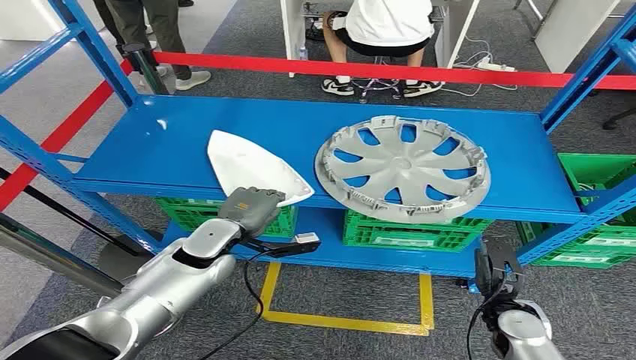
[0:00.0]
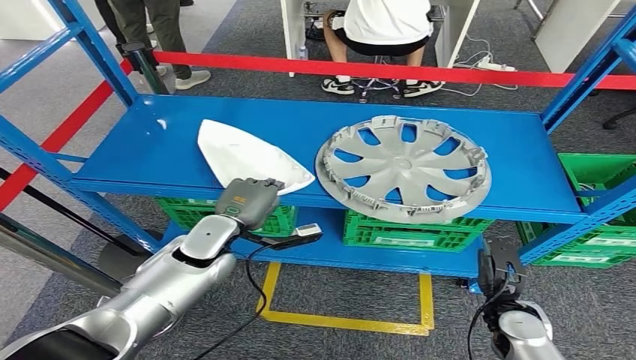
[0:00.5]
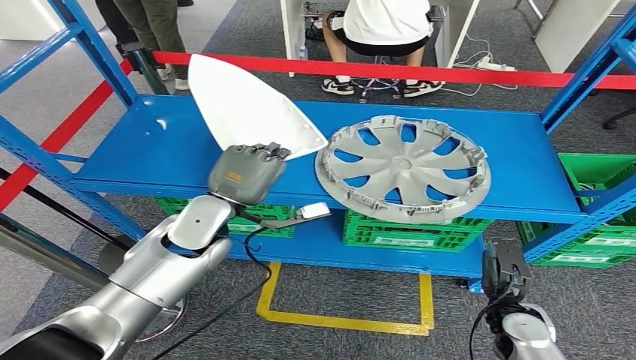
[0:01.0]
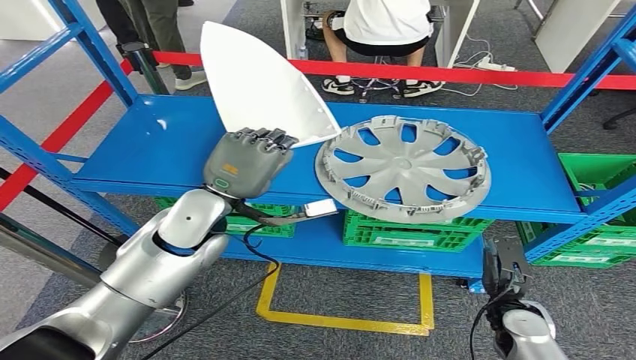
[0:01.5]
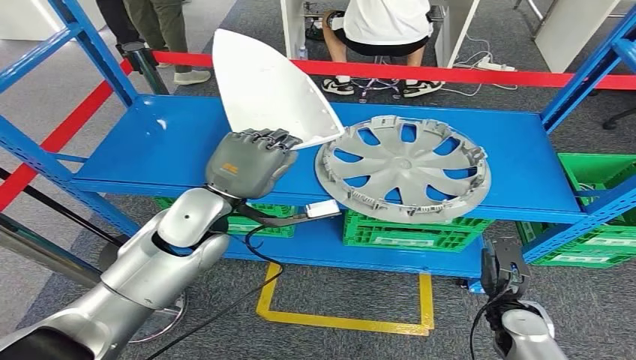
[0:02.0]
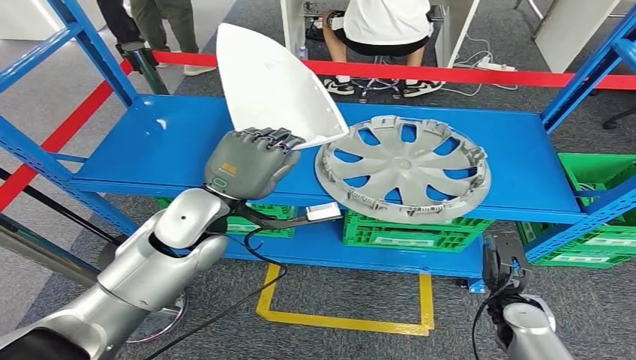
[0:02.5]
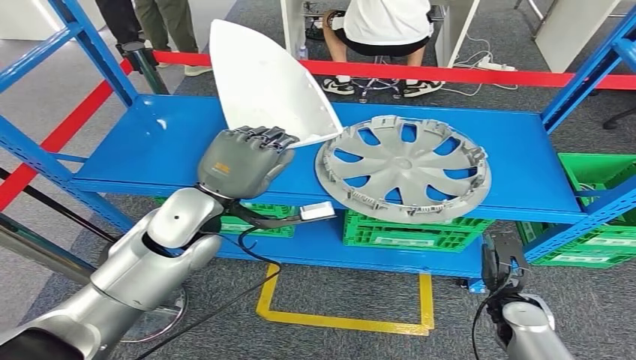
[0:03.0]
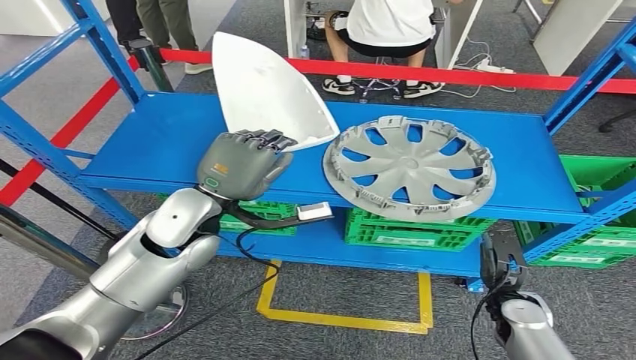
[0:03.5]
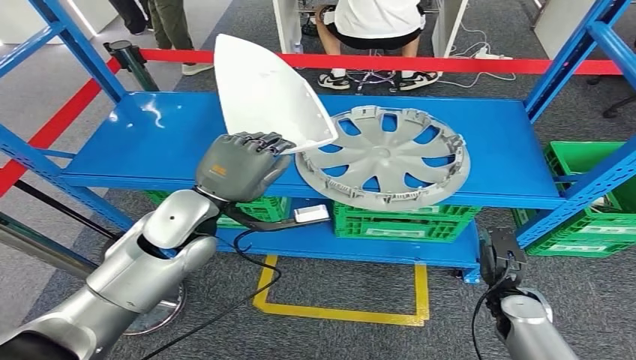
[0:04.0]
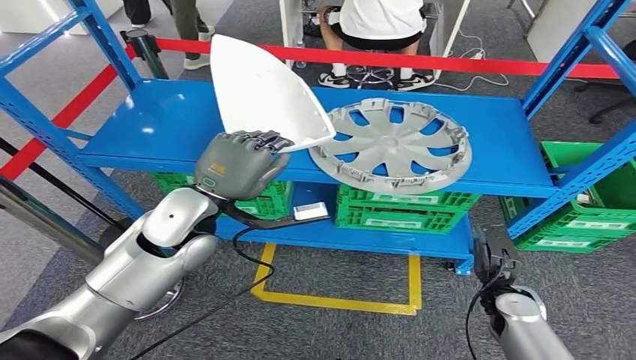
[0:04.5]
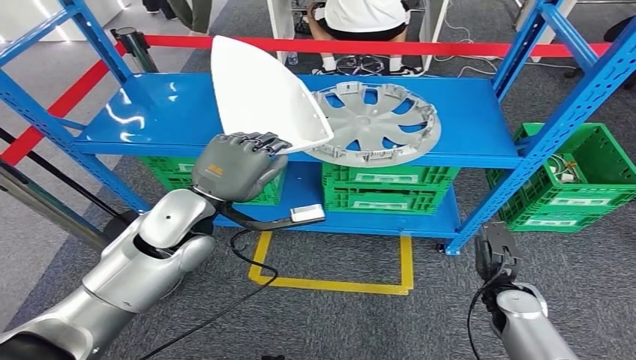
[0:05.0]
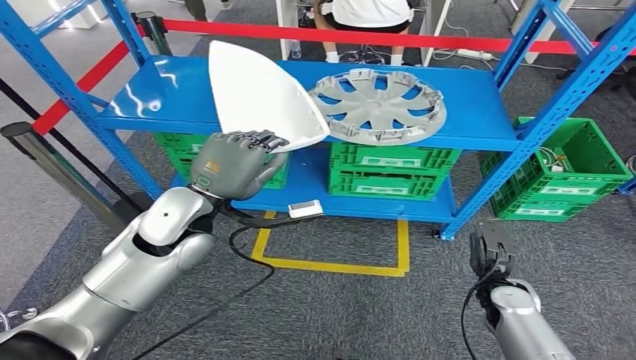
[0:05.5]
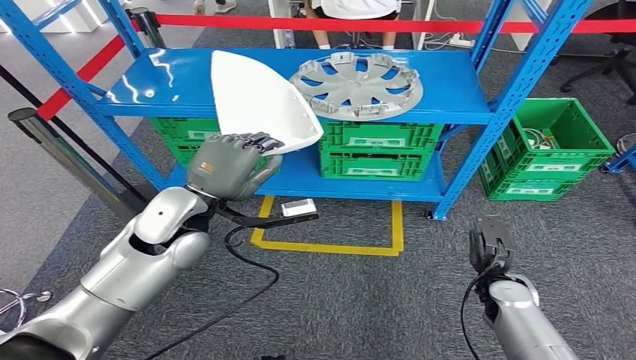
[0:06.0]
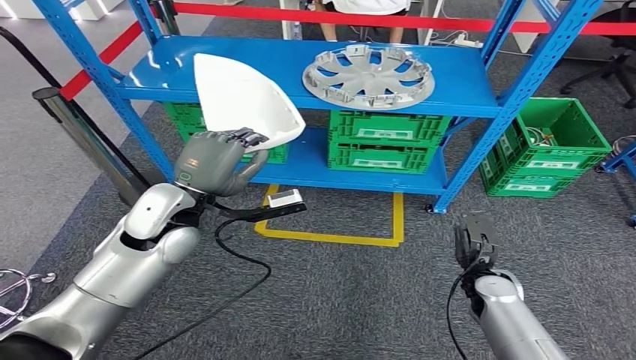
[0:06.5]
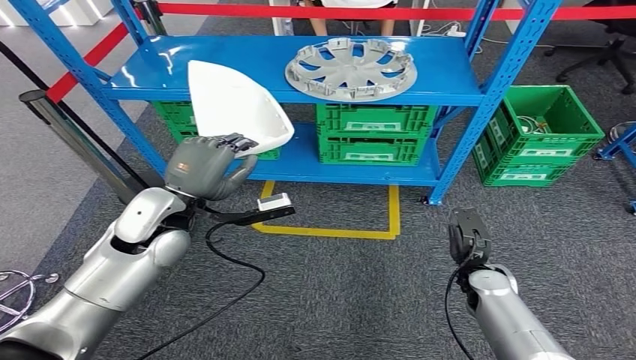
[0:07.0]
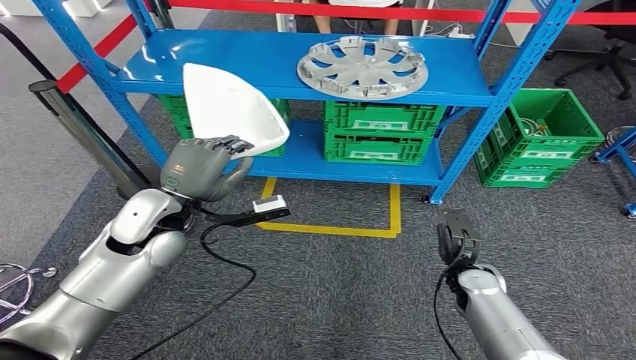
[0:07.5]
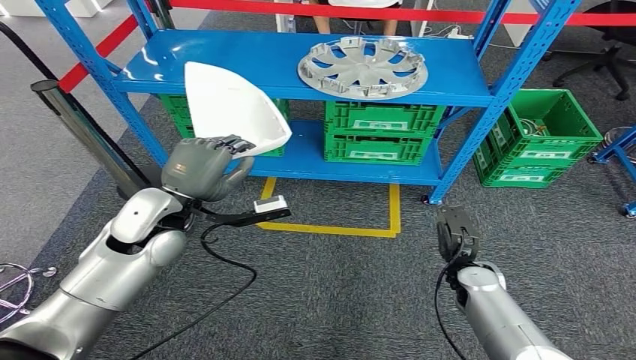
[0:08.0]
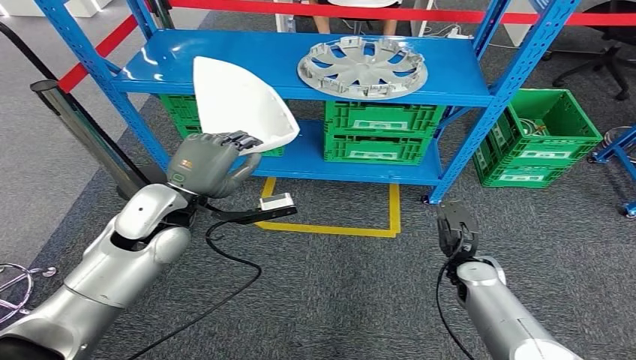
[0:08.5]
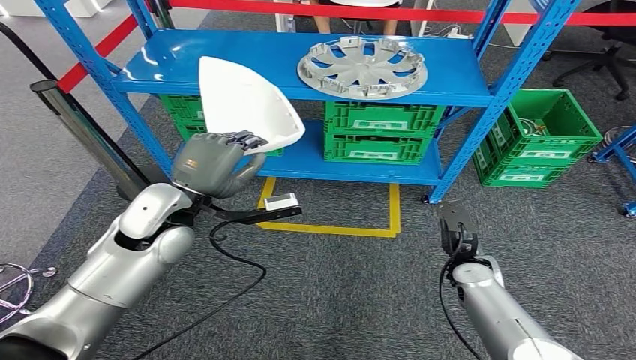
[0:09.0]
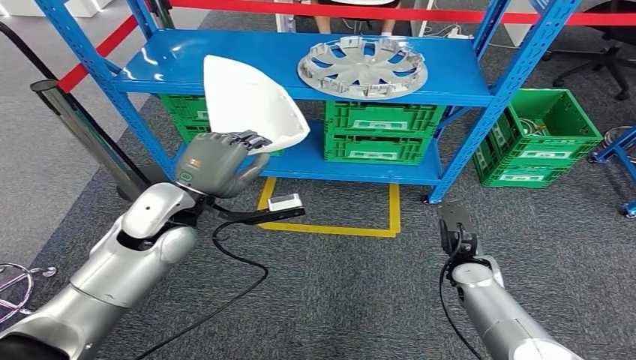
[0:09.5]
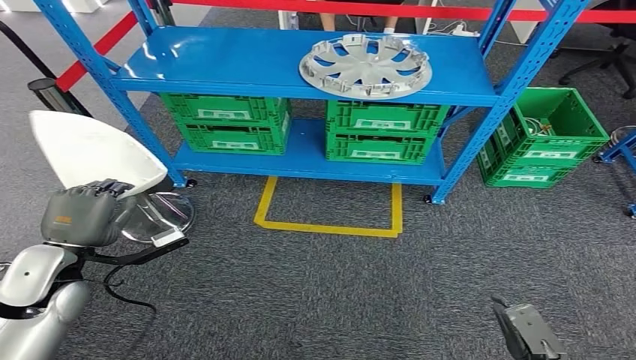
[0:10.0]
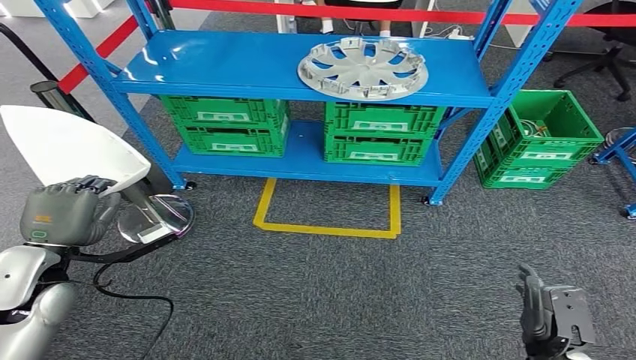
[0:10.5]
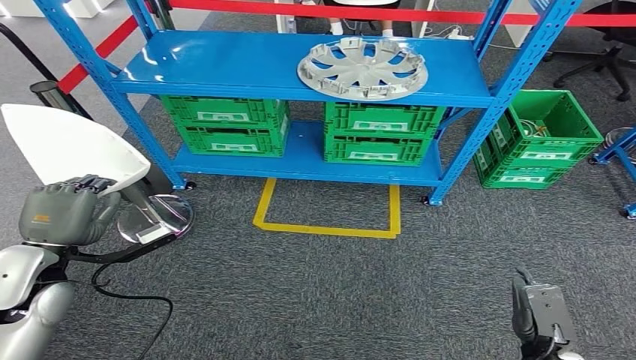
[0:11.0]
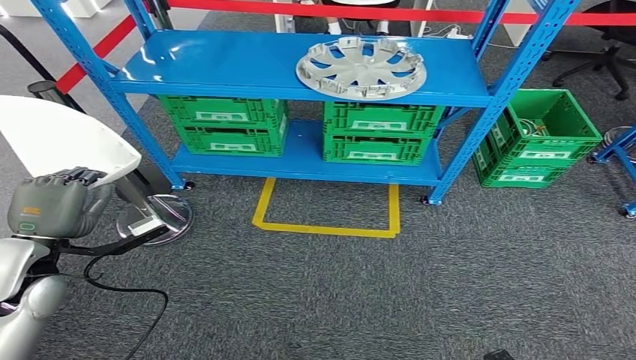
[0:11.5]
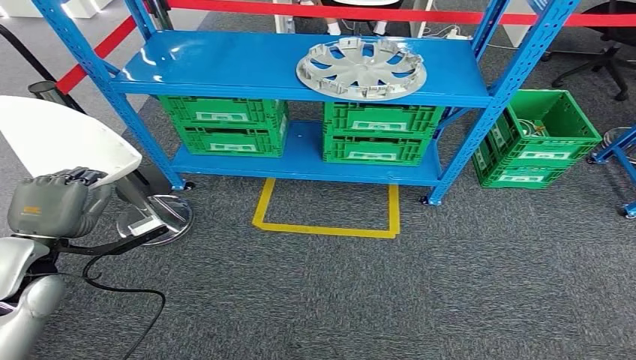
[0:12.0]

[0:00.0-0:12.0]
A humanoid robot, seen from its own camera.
Step, 0:00.0 to 0:04.5: Pick up the small component from the shelf.

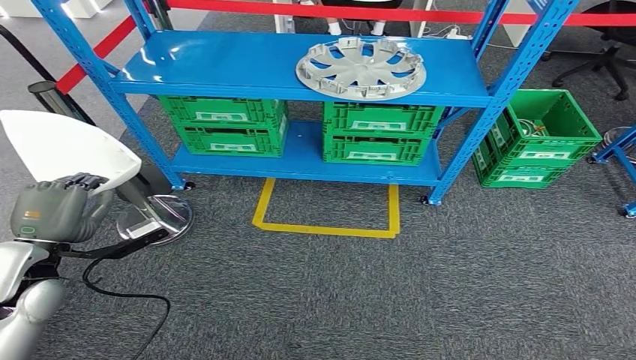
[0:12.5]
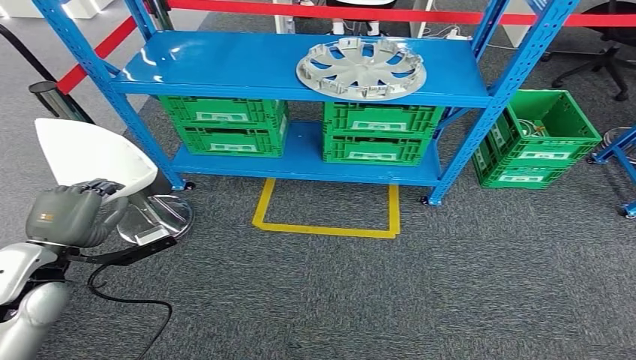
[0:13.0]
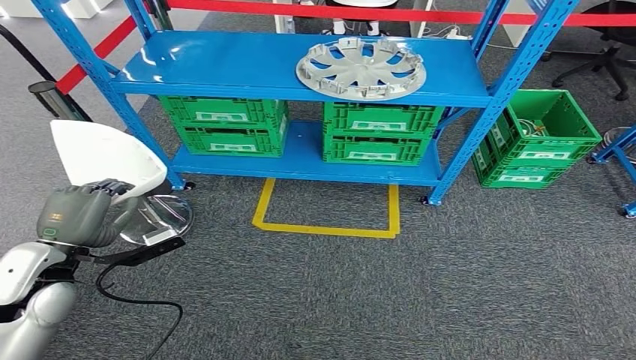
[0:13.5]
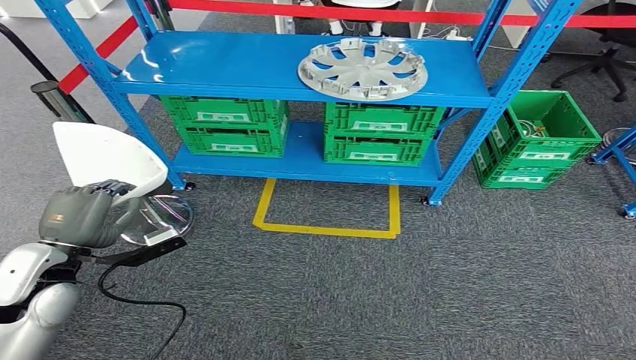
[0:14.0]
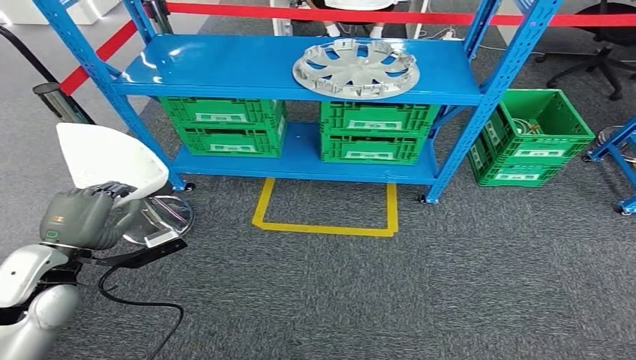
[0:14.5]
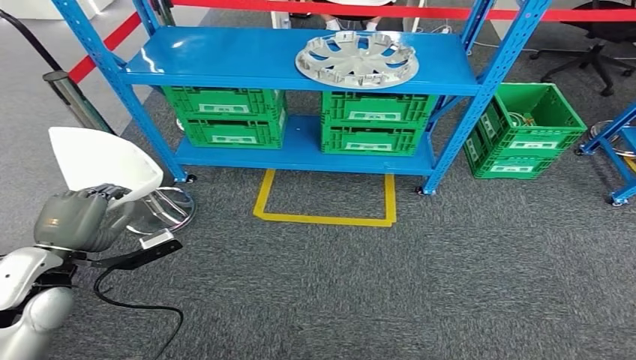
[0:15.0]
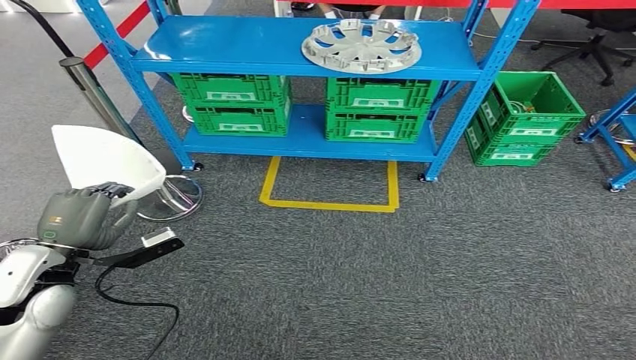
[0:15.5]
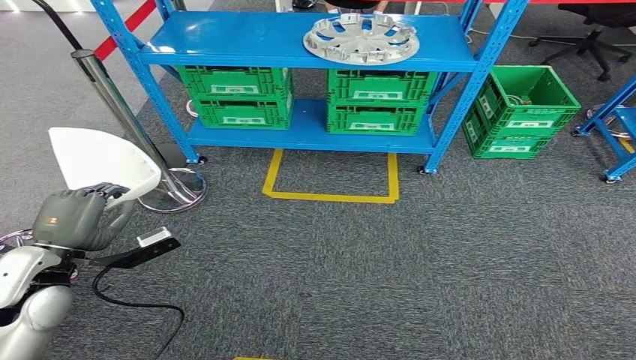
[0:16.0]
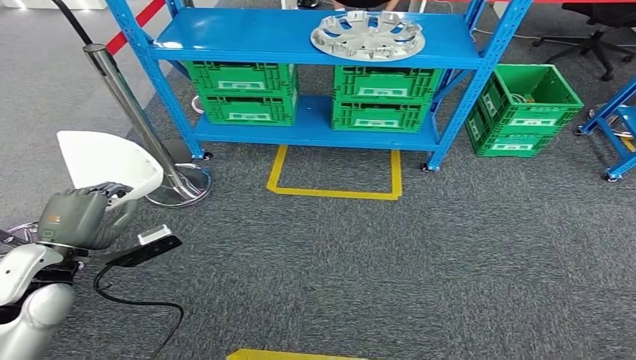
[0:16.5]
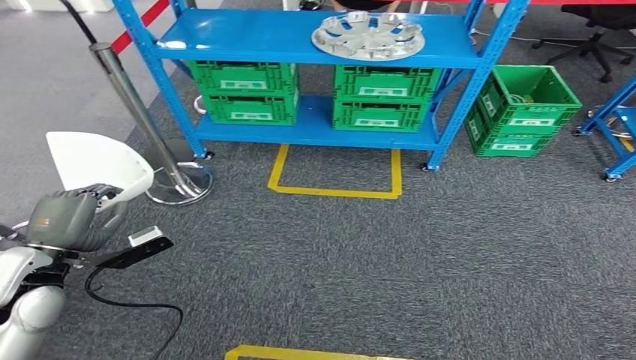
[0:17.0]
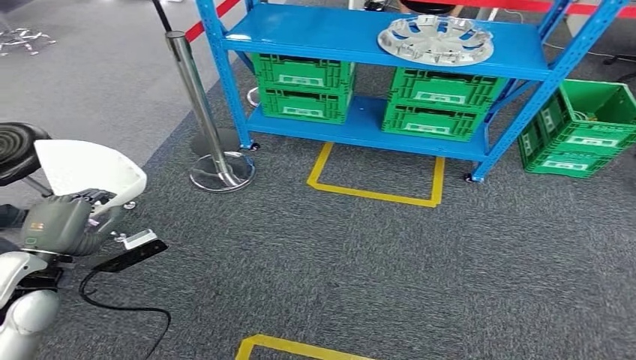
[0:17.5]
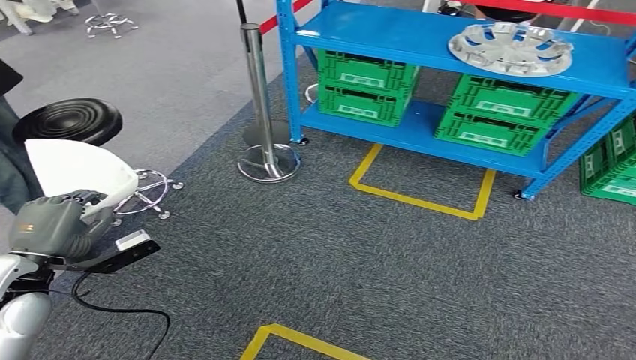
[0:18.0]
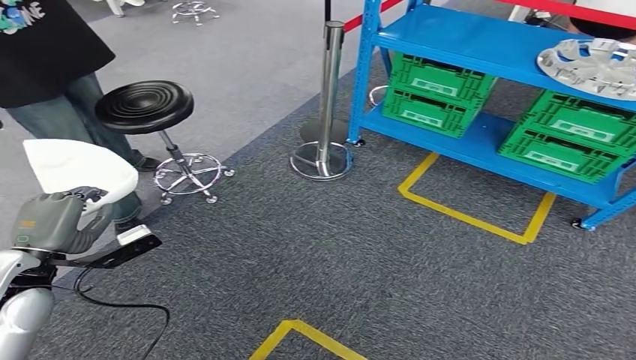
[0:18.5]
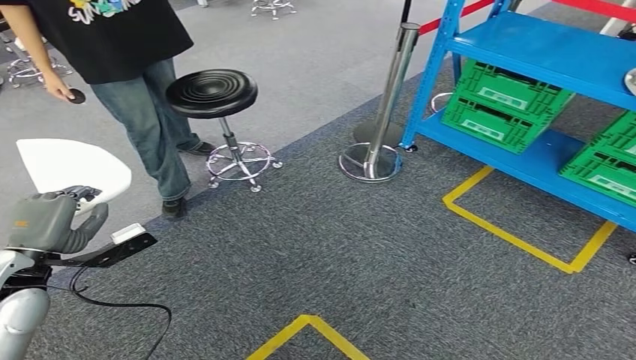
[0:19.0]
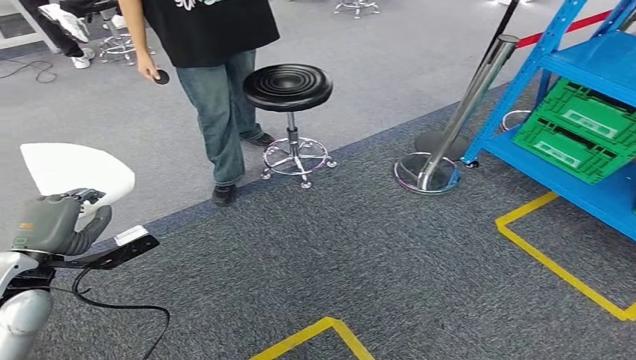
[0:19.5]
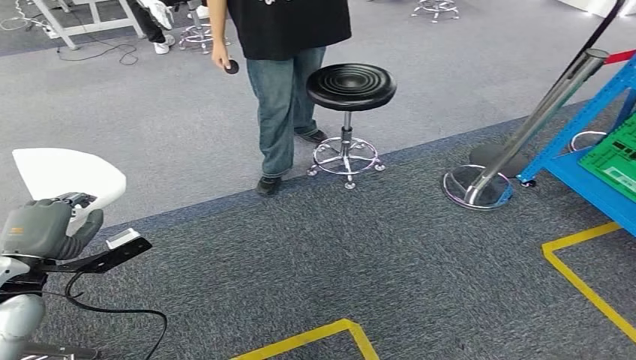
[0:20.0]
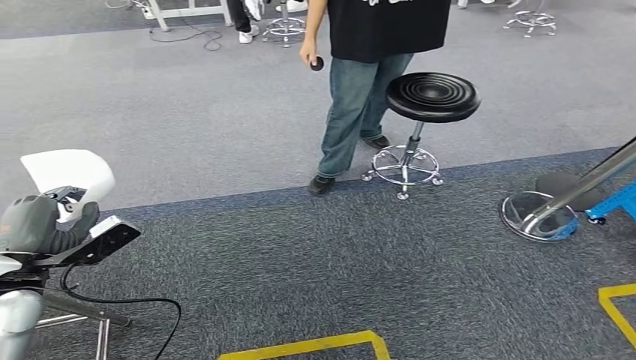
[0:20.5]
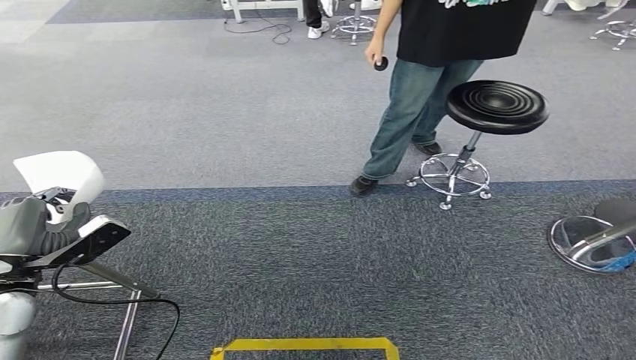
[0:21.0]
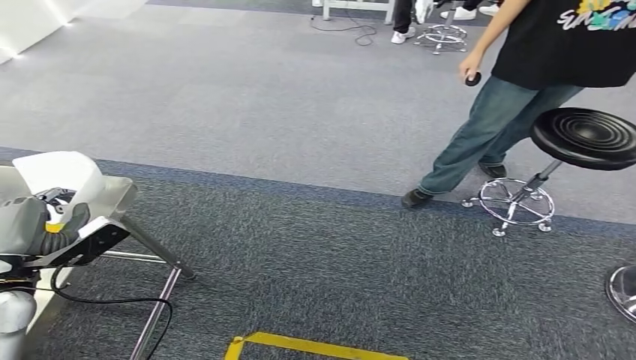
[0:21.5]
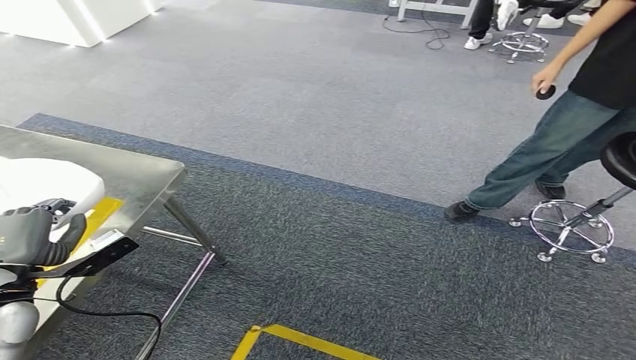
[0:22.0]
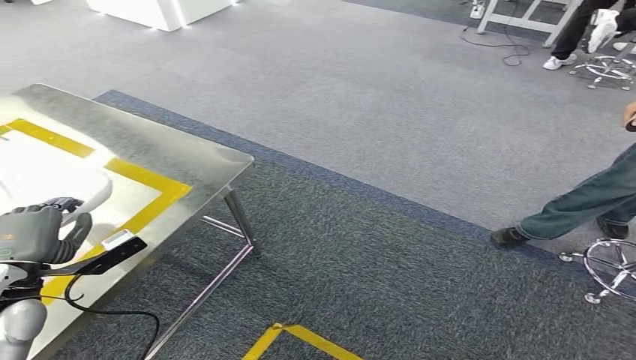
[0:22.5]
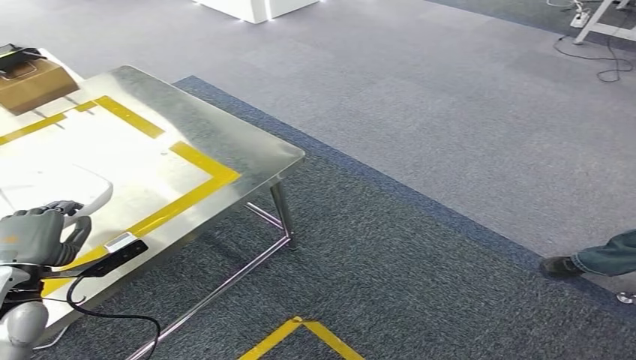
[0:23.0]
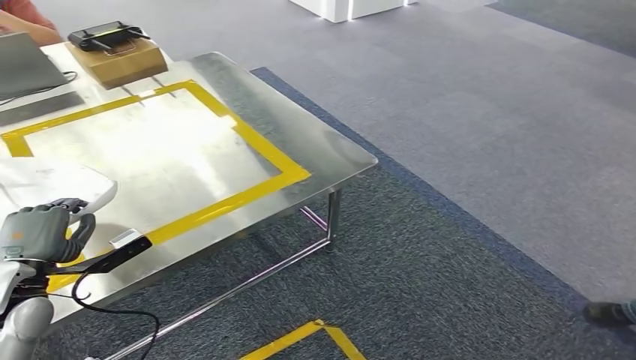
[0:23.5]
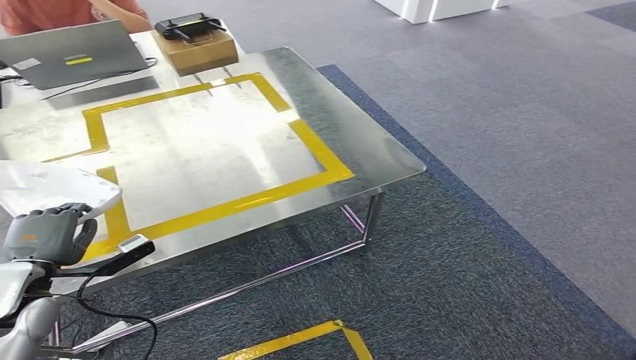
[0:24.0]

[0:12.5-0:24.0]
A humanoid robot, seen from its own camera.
Step, 0:12.5 to 0:22.5: Bring the small component to the front of the workbench.
0:12.5 to 0:14.5: The hands make only small movements.
